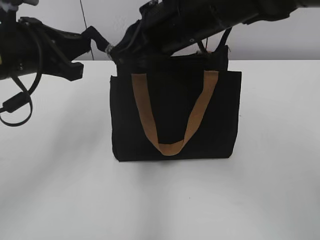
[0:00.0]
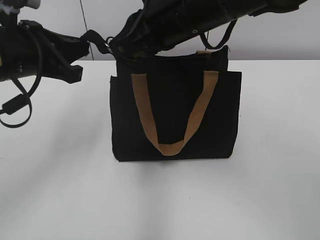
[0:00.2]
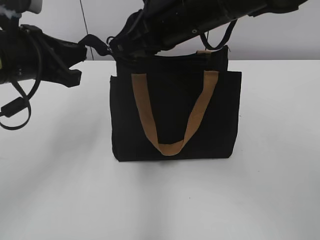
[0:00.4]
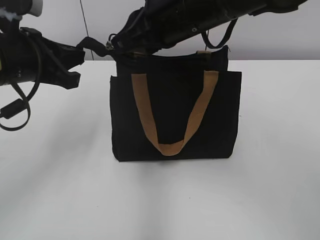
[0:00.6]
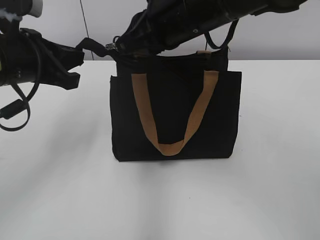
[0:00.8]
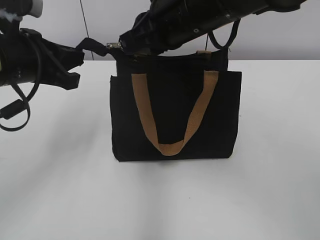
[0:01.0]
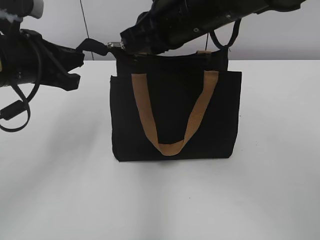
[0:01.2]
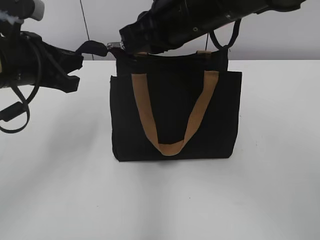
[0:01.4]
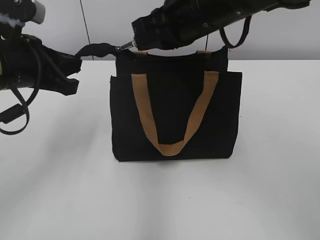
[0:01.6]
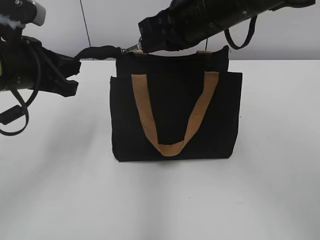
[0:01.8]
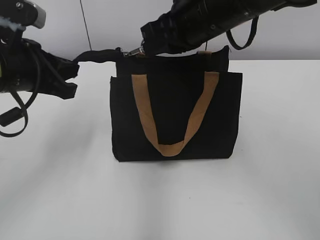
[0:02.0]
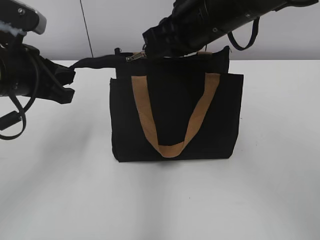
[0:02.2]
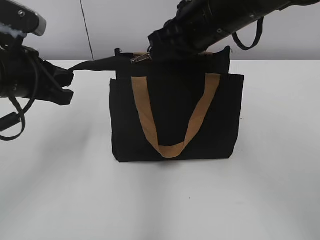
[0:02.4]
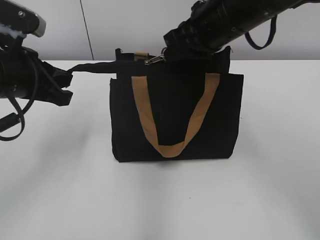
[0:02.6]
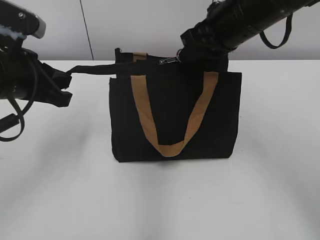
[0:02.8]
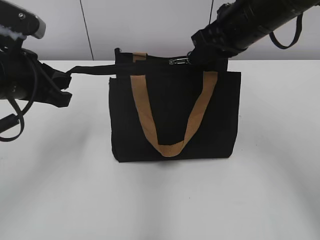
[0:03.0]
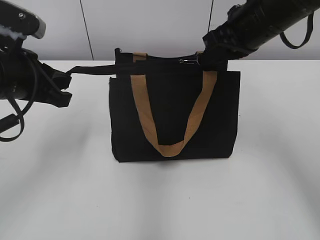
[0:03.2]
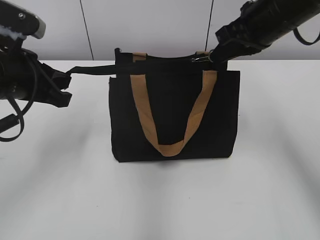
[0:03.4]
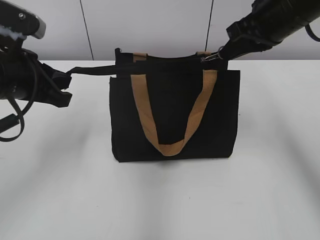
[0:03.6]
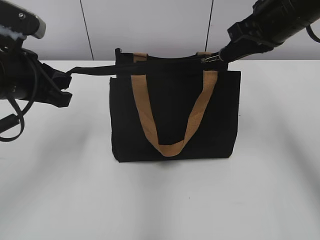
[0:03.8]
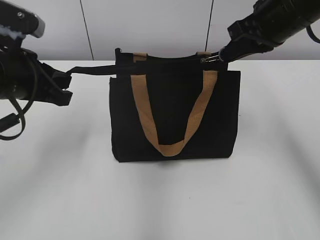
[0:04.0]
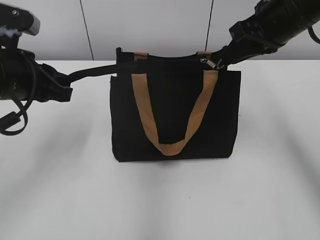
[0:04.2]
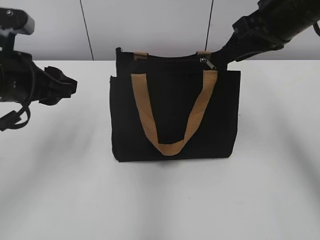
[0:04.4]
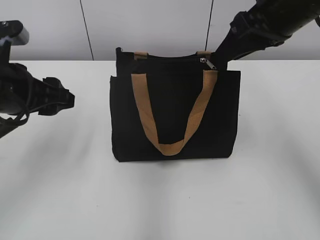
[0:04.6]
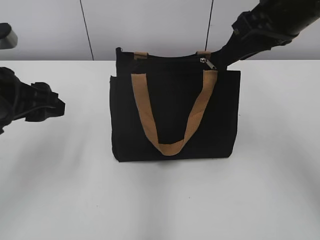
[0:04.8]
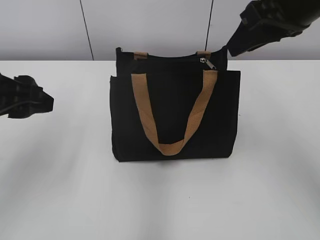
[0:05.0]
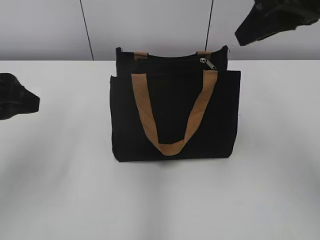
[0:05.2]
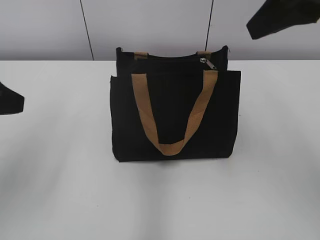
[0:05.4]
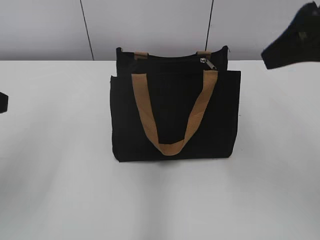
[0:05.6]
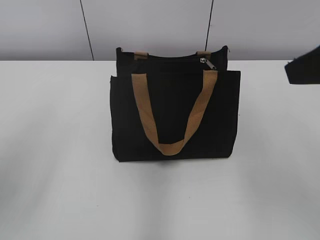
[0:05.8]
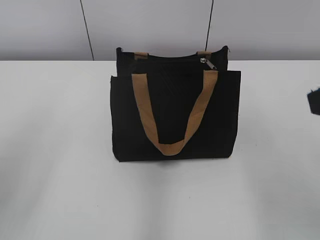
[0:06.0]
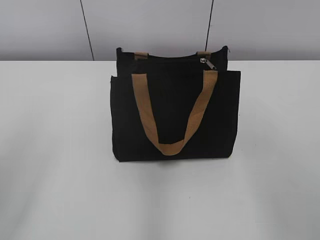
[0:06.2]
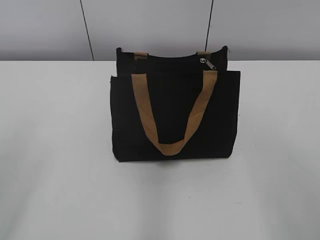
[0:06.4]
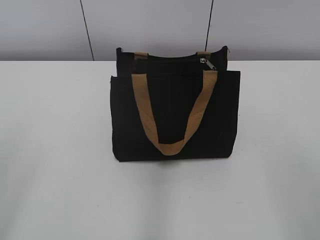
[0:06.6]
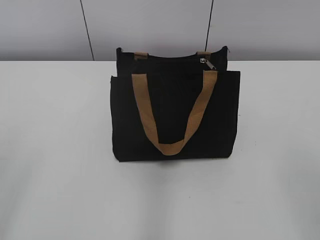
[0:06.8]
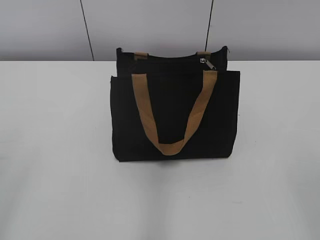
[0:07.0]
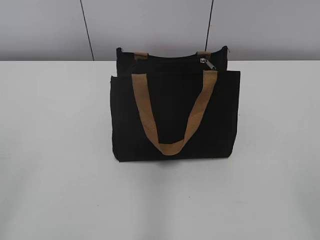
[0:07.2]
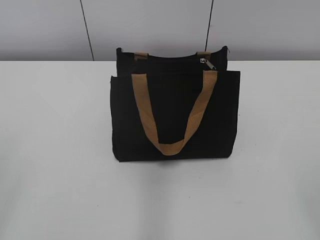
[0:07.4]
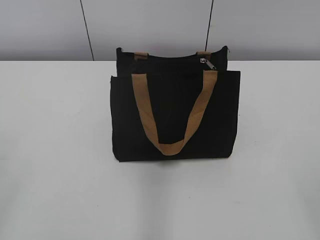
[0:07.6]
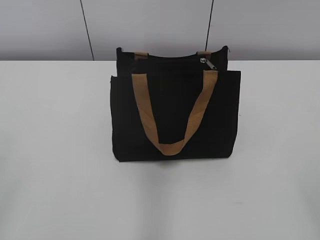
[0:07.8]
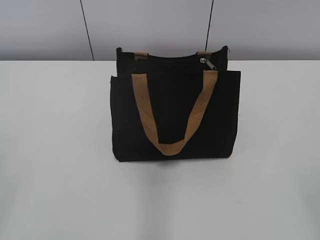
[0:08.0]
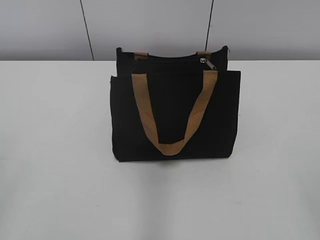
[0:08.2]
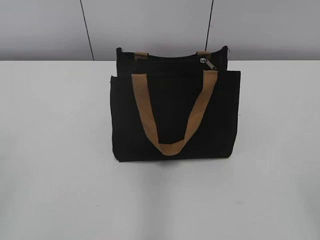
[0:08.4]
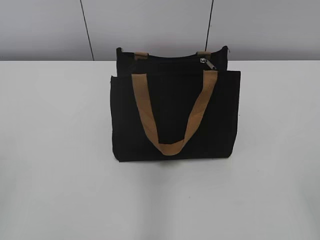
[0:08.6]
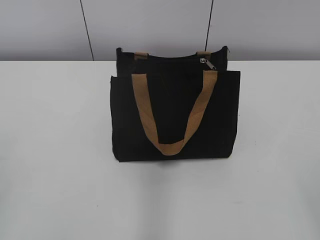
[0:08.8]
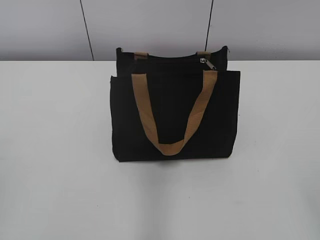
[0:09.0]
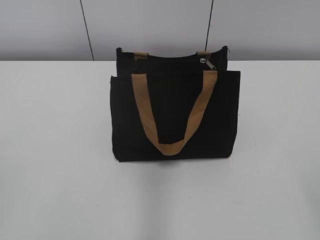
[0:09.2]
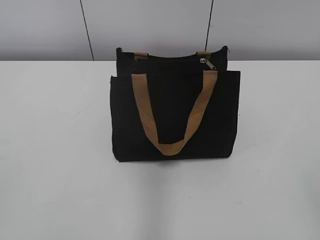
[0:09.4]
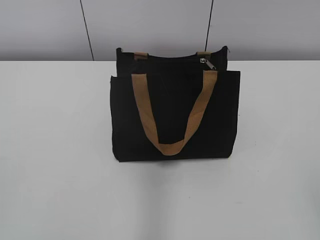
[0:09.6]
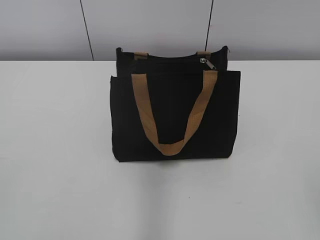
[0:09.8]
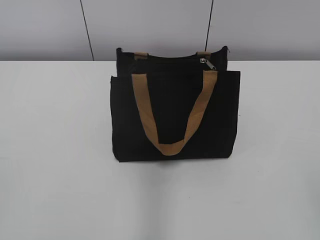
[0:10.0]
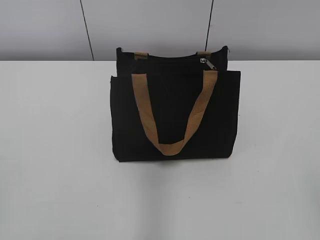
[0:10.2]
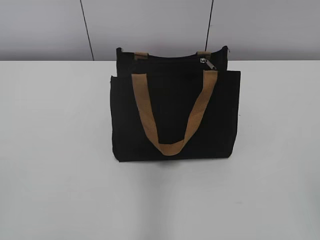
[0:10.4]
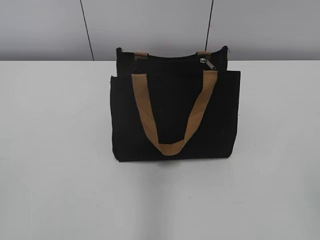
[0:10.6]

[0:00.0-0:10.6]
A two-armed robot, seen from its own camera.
Step, 0:00.0 to 0:04.0: Zip up the bag with your right hand.
0:00.0 to 0:01.6: The grippers stay close to where they were, moving slightly.
0:01.6 to 0:03.0: The right gripper shifts roughly 5 cm to the right.
0:03.0 to 0:04.6: The left gripper opens up. Meanwhile the right gripper shifts by approximately 5 cm, and opens up.
0:04.6 to 0:06.0: The right gripper moves backward, roughly 20 cm, while the left gripper is displaced backward, upward and to the left by approximately 15 cm.
